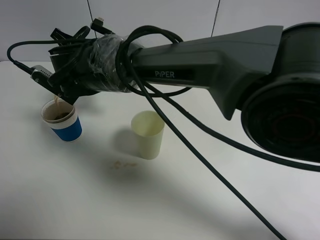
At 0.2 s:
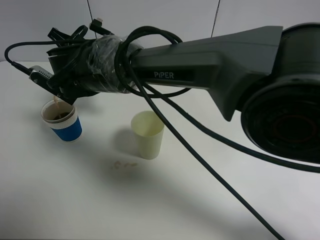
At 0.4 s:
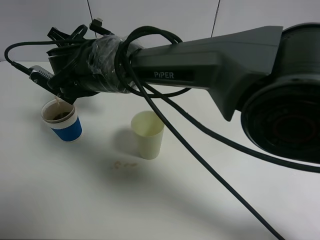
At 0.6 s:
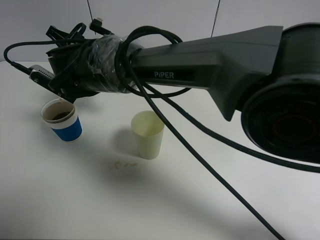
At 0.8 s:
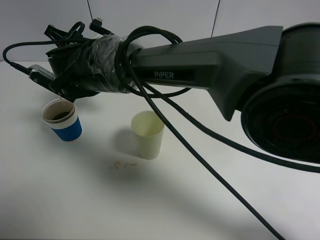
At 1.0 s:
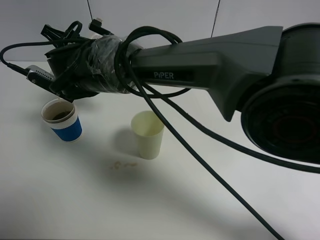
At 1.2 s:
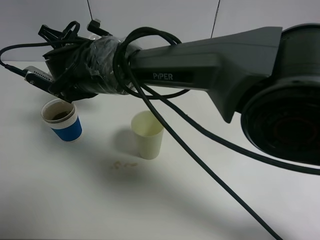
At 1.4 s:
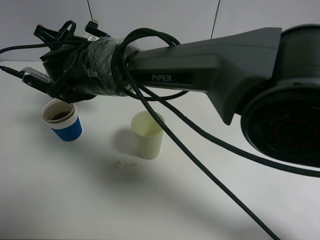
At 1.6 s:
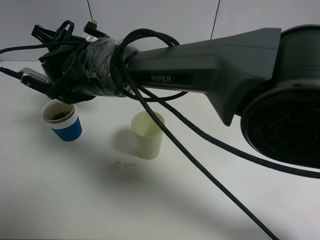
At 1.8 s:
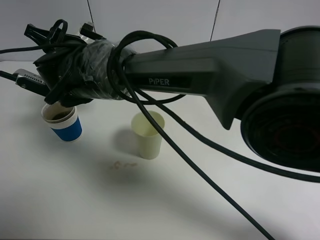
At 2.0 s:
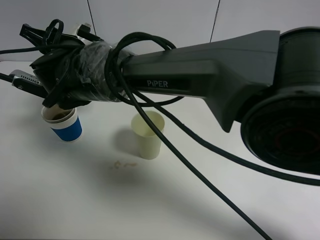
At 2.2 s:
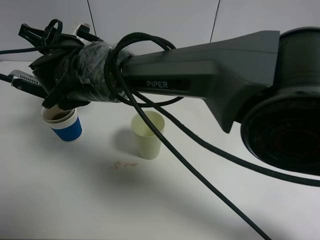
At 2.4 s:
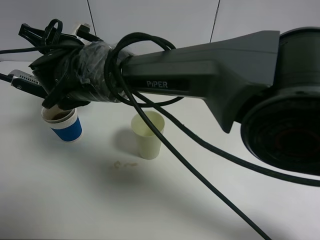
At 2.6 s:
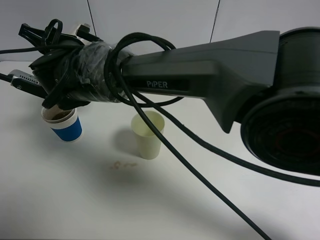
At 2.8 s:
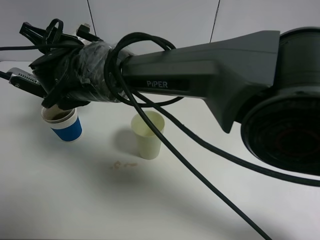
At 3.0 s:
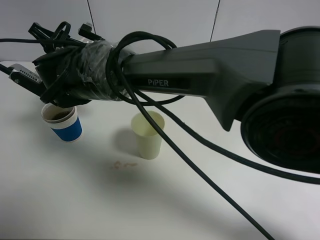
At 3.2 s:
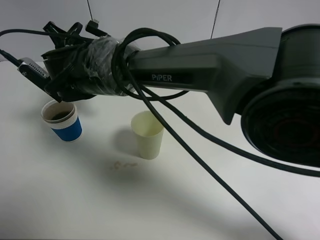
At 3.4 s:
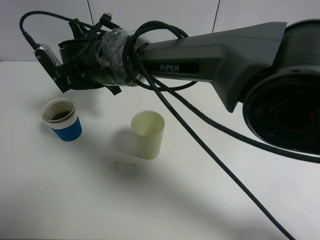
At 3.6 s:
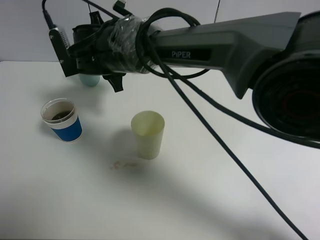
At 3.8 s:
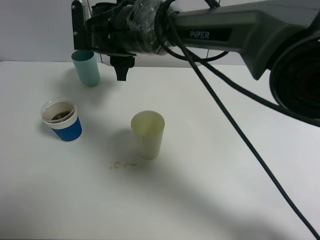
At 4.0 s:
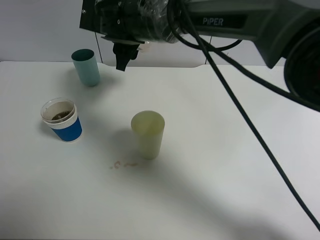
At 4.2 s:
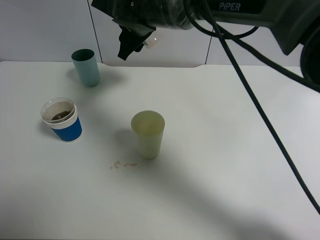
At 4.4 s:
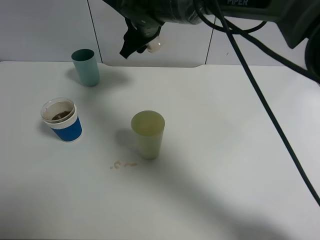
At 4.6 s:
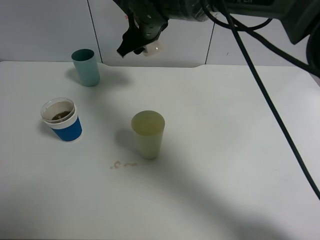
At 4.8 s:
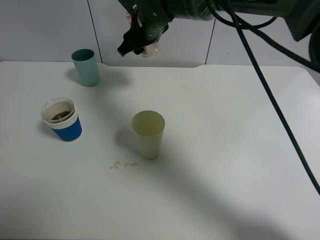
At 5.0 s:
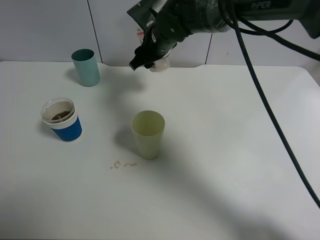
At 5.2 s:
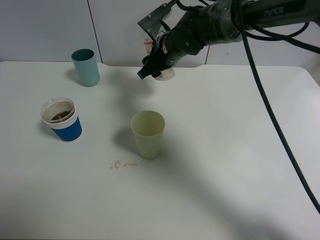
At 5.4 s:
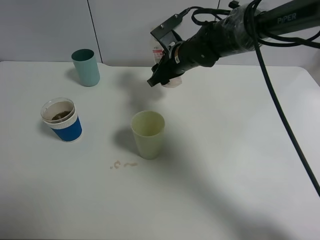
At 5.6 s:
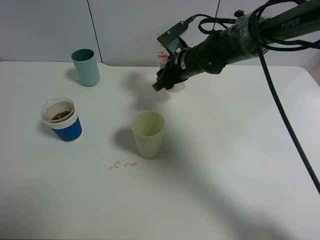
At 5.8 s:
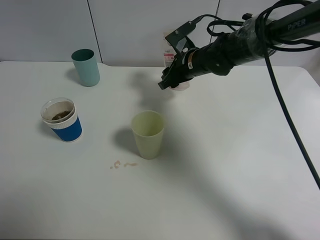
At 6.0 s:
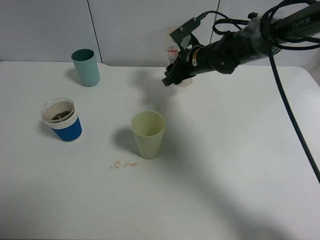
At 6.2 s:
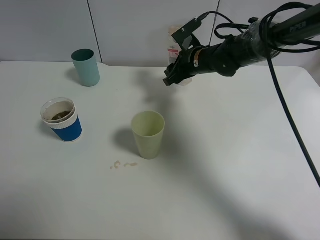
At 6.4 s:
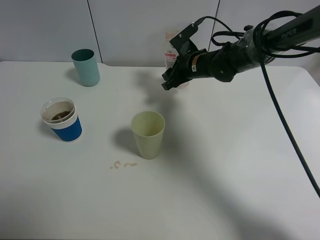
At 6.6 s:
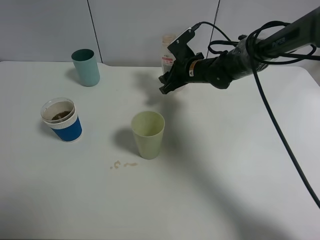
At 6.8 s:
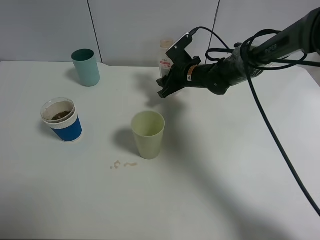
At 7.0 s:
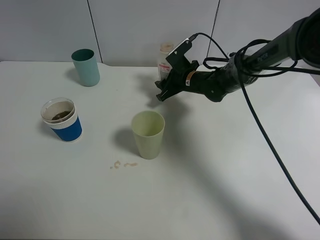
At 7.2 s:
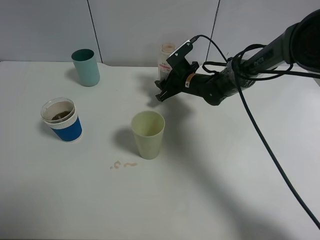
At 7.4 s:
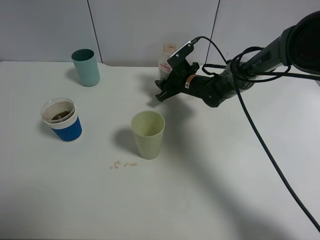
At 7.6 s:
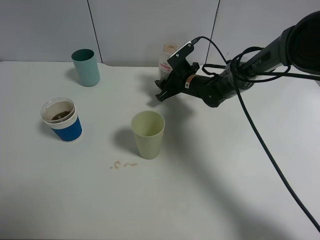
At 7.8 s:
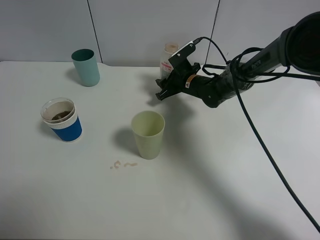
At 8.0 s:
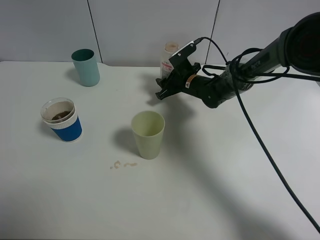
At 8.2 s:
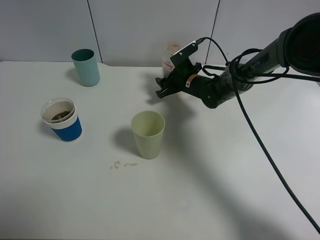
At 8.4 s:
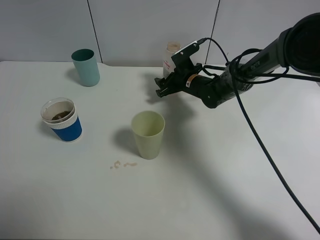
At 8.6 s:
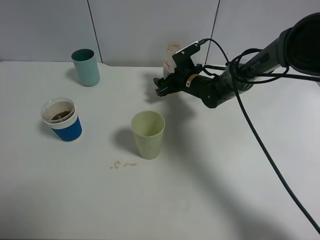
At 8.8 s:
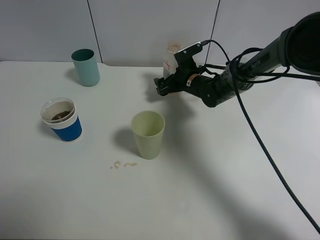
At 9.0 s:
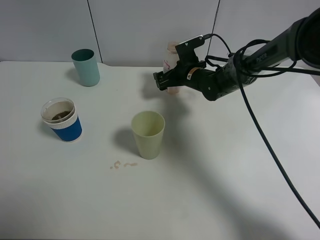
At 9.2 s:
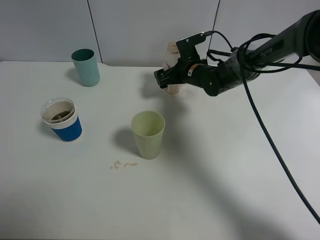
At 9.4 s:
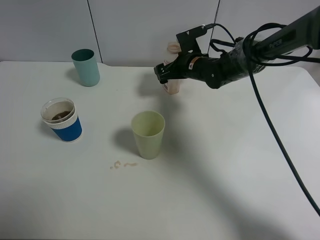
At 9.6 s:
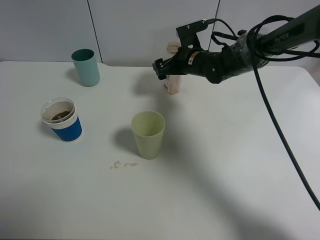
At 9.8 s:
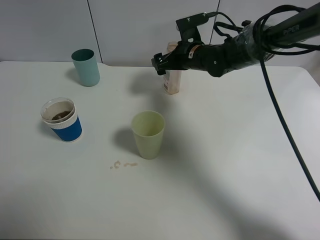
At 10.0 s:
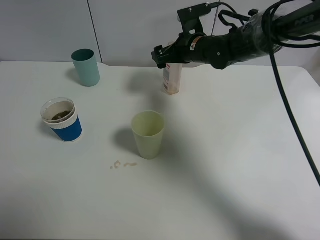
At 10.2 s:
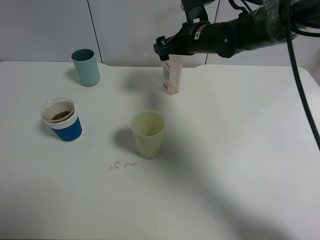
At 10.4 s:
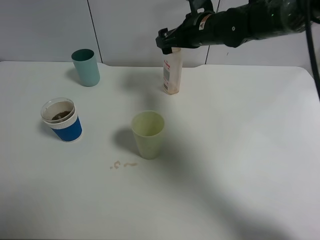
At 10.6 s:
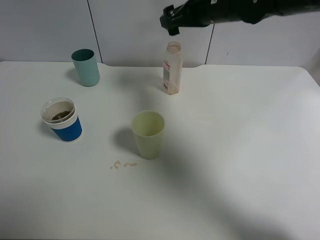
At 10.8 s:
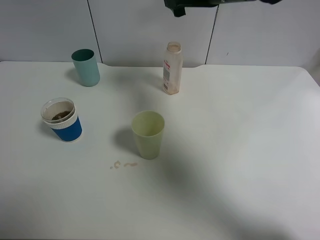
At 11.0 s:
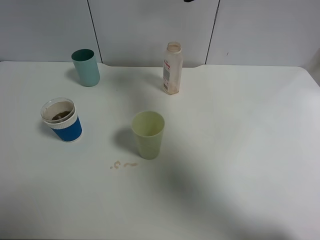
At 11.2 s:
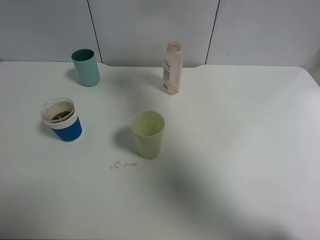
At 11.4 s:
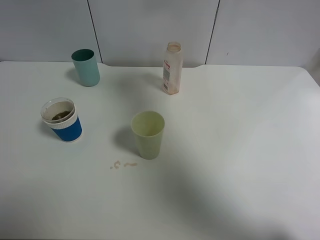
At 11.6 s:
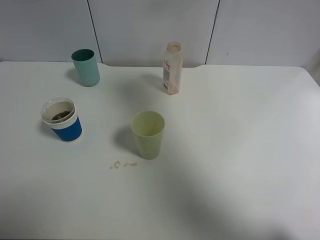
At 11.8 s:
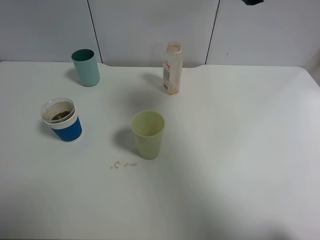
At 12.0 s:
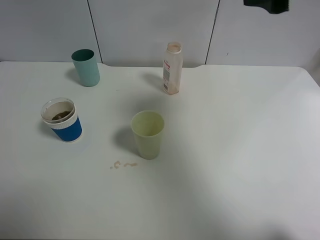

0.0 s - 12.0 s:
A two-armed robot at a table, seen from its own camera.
Task of the whole recording: use a clamp to hold the bottle of the drink, pour the beverage into a random cup, then clamp the cup containing the drink and pour the drink into another random cup.
Step, 0.0 s - 3.2 s: Pour the drink into the blue plastic cup with right gripper.
Step, 3.4 s - 8.8 s: Place the drink bottle on the table with right gripper.
0.0 s - 3.0 s: The grippers move only a little.
3.0 s - 4.4 s: The right gripper shifts some 15 cm to the right and forward.
4.4 s - 6.0 s: The right gripper moves to the right and downward, about 15 cm.
6.0 s - 7.6 s: The right gripper moves downward, approximately 10 cm.
7.6 s - 9.0 s: The right gripper opens its fingers.
9.0 s - 10.4 s: The right gripper moves upward, about 15 cm.
10.4 s - 12.0 s: The right gripper shifts about 25 cm backward, upward and to the right.

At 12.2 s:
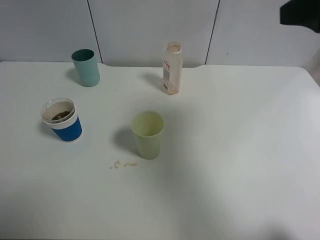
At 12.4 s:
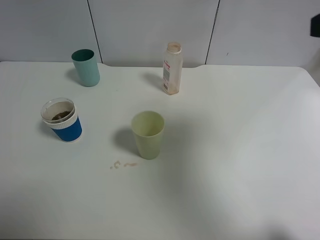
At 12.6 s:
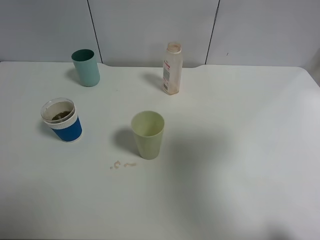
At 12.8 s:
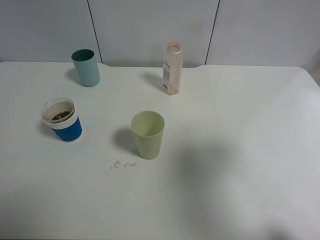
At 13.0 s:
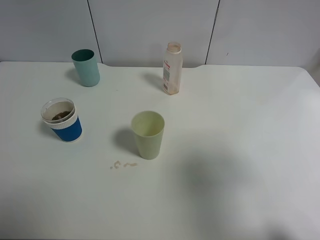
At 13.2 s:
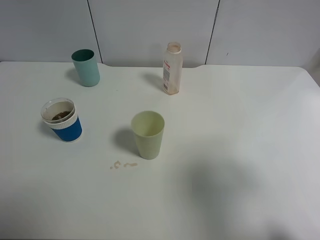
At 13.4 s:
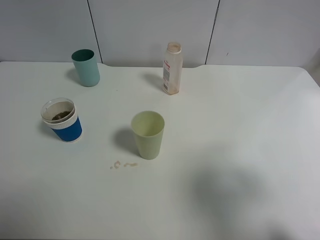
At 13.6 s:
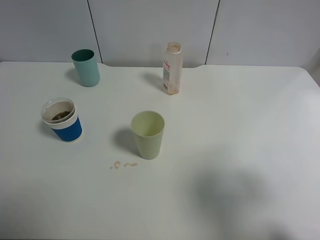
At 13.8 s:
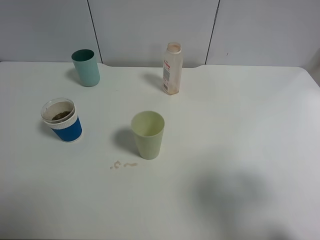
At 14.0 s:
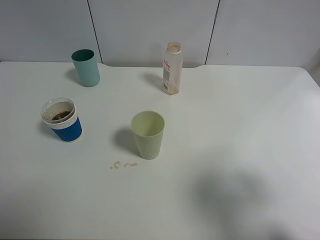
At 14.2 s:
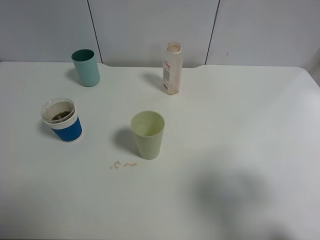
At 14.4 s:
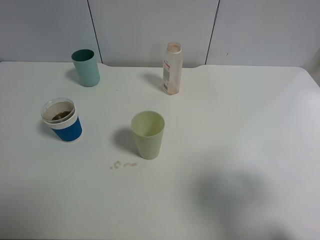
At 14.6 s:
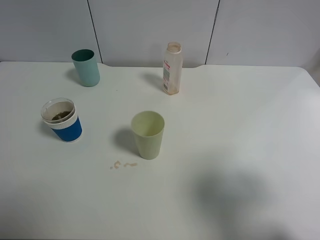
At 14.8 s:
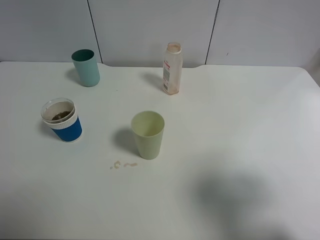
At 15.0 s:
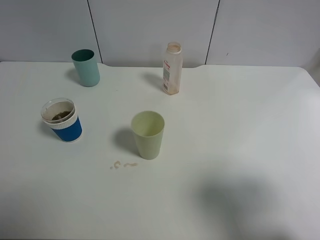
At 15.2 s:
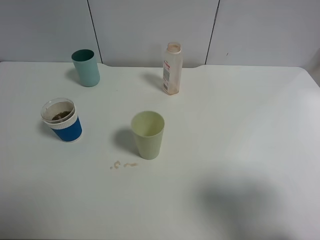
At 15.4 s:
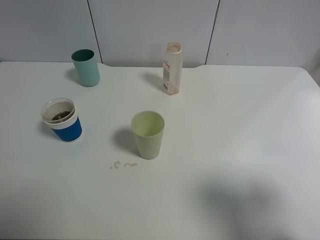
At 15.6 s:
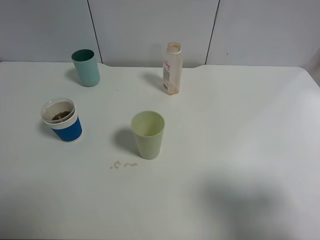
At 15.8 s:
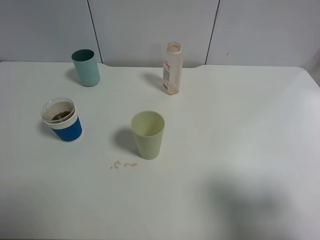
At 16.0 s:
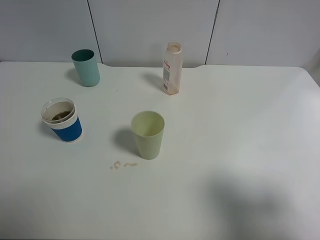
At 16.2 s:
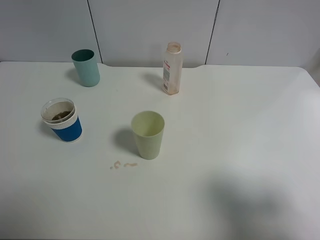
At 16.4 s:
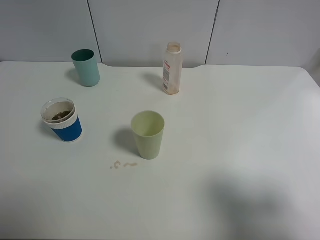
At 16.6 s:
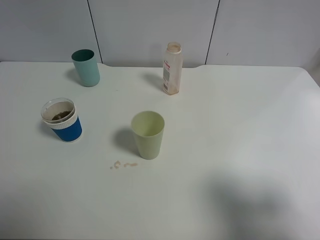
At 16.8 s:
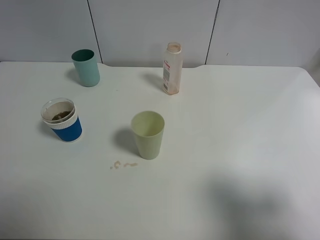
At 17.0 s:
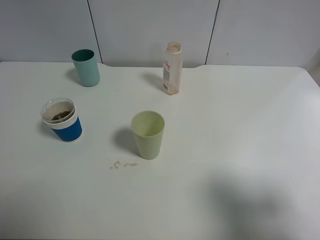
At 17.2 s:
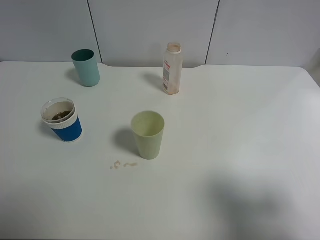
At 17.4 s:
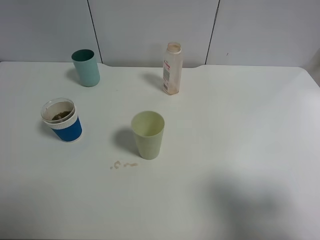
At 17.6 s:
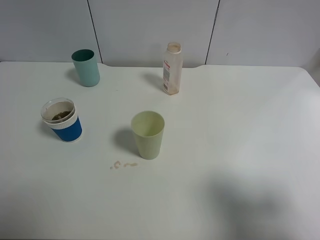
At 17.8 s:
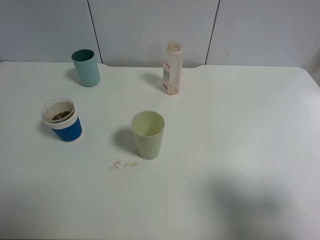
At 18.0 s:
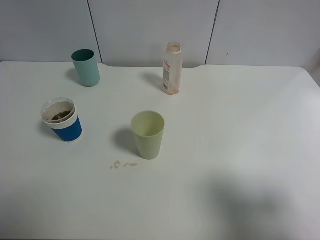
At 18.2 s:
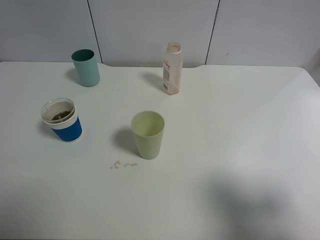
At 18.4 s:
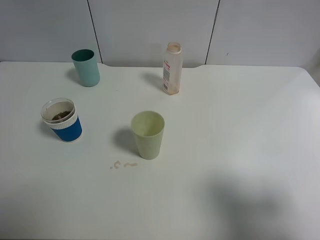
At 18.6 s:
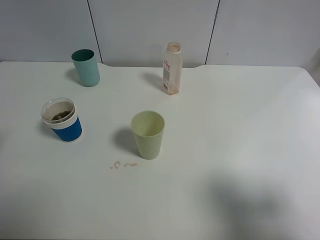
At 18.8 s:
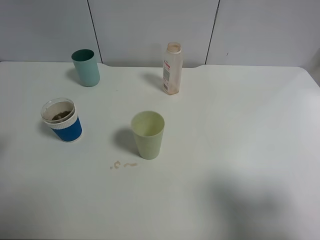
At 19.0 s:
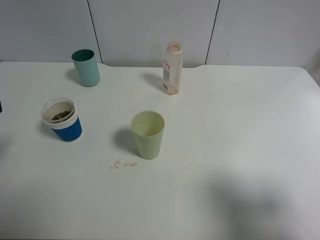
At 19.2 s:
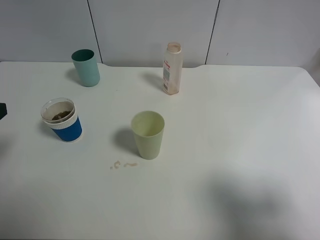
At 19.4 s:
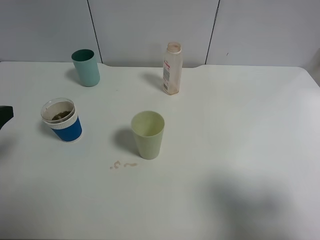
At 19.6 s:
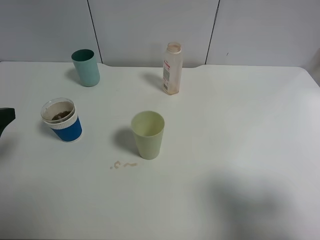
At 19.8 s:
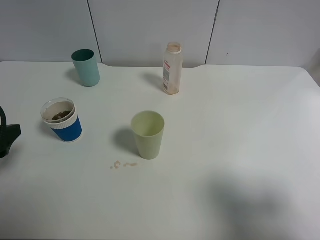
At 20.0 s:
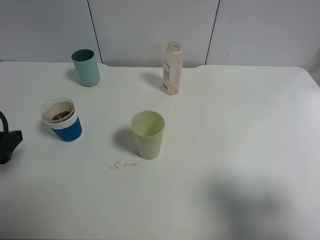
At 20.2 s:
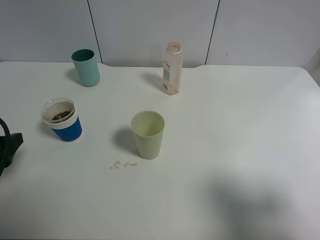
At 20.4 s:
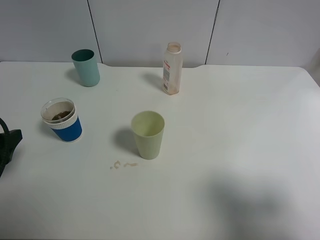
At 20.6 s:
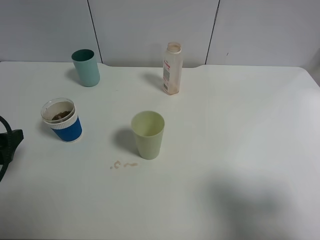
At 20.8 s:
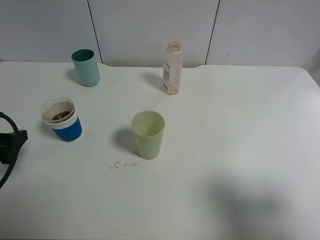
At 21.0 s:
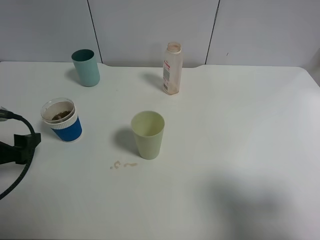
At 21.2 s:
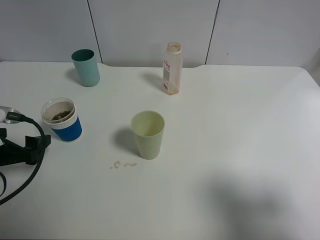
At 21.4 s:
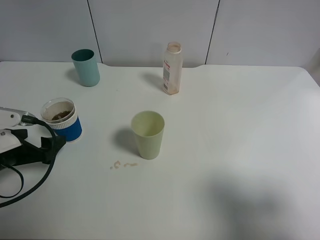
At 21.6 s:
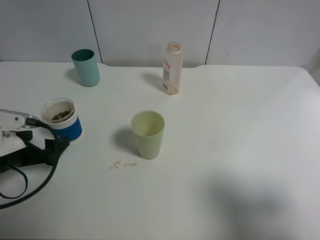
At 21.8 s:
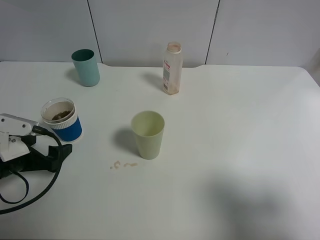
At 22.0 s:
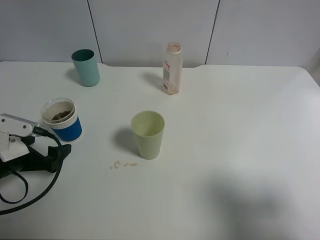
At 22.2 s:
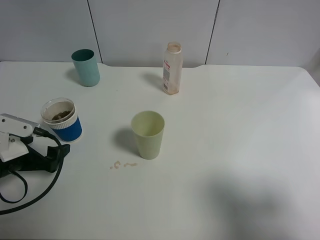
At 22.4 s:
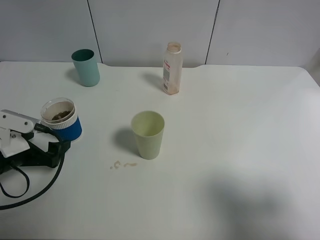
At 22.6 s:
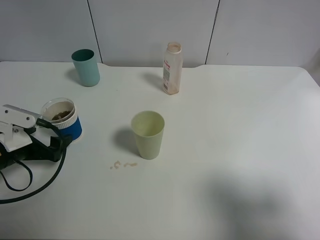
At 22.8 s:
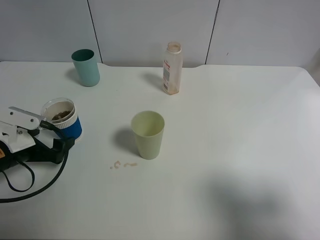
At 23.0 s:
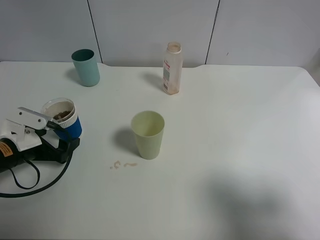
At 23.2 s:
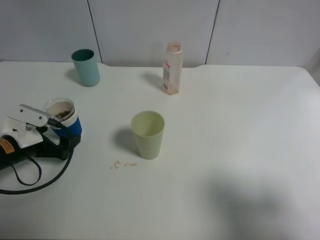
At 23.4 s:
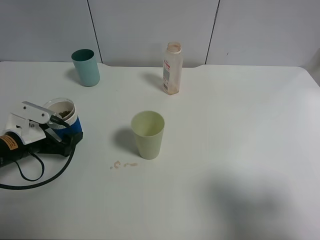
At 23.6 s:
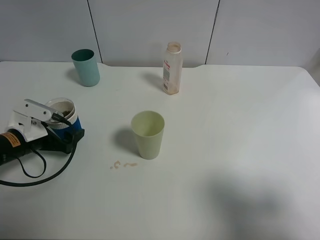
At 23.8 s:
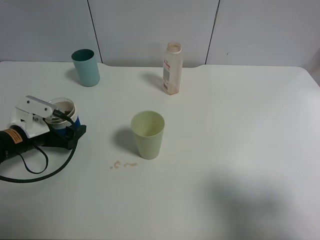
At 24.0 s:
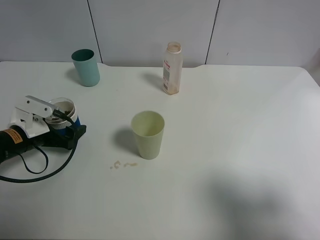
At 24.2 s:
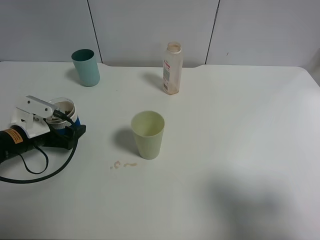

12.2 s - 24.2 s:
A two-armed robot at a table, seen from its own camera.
Task of the whole recording: use a clamp to hold the bottle of the drink, pour the beverage into a random cup, then clamp the cup containing the drink and pour the drink into another random cup.
12.2 s - 13.8 s: The right gripper shifts roughly 15 cm backward, downward and to the right.
18.2 s - 19.8 s: The left gripper travels downward by approximately 15 cm.
19.8 s - 21.2 s: The left gripper is displaced downward by roughly 5 cm.
21.2 s - 22.6 s: The left gripper shifts by roughly 5 cm.
22.6 s - 24.2 s: There are only small adjustments of the grippers.
